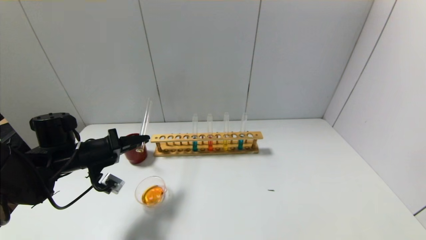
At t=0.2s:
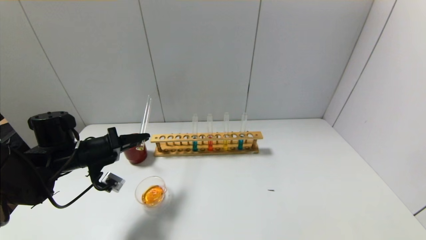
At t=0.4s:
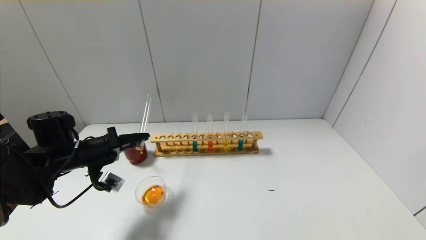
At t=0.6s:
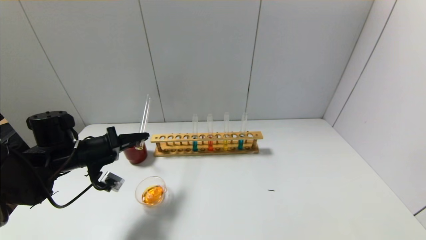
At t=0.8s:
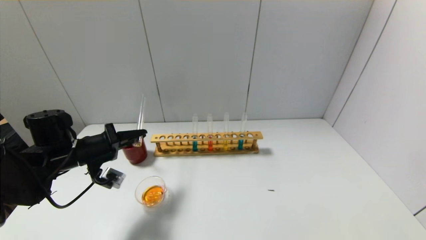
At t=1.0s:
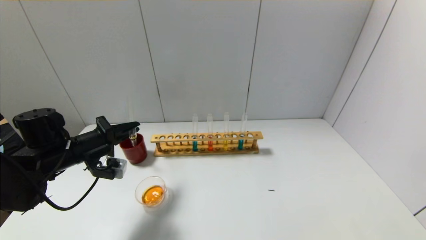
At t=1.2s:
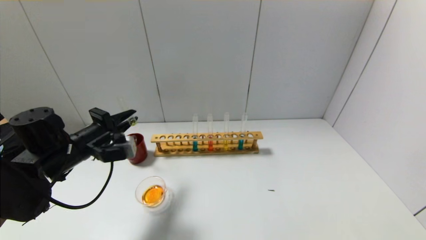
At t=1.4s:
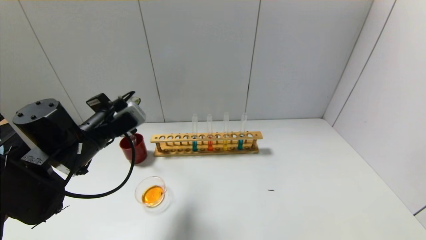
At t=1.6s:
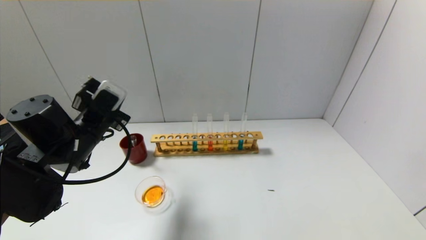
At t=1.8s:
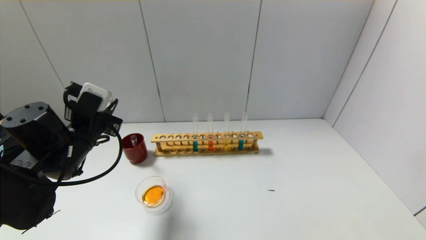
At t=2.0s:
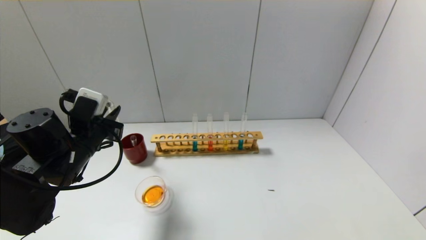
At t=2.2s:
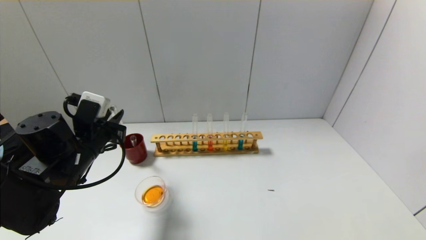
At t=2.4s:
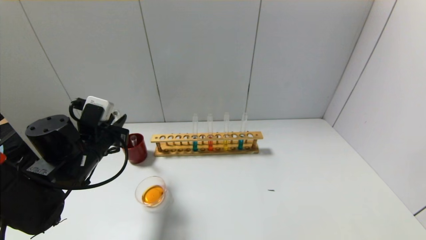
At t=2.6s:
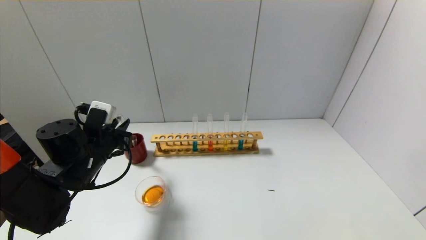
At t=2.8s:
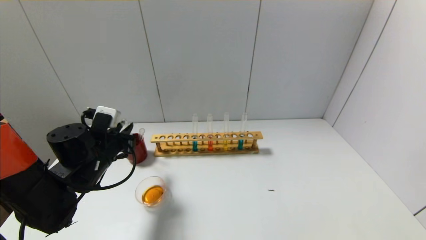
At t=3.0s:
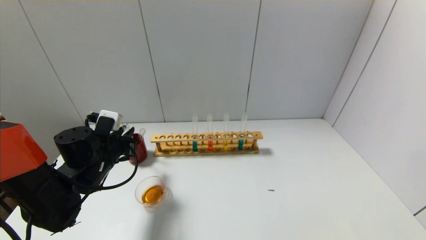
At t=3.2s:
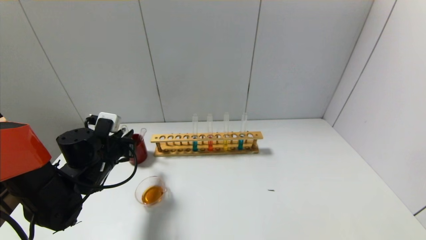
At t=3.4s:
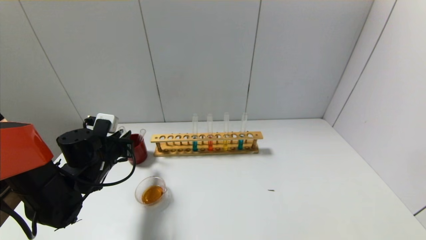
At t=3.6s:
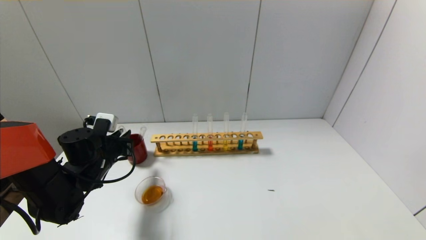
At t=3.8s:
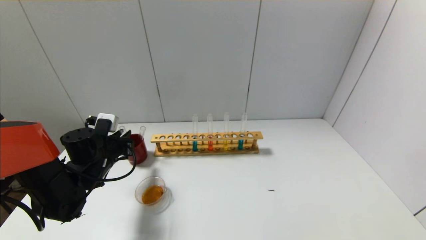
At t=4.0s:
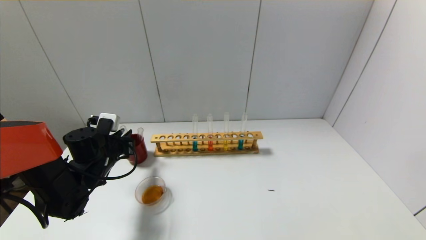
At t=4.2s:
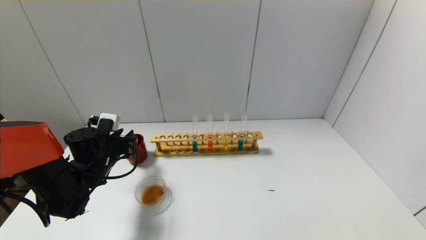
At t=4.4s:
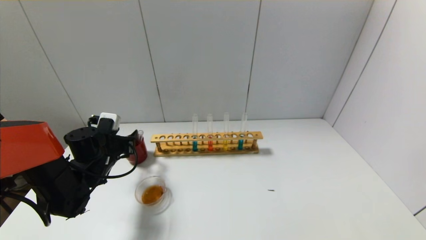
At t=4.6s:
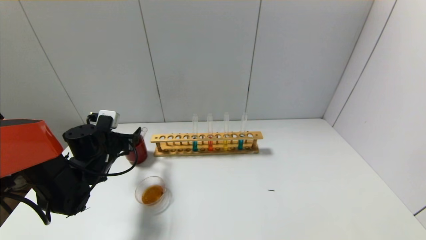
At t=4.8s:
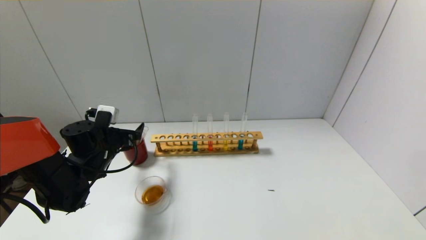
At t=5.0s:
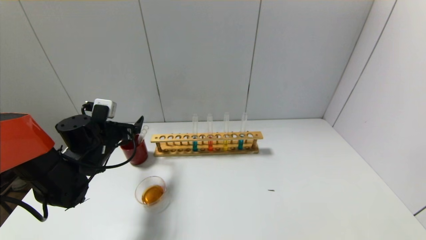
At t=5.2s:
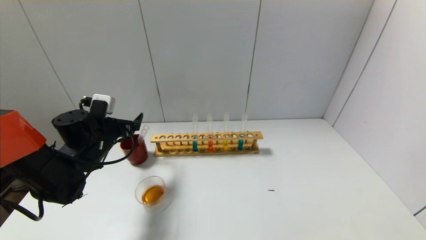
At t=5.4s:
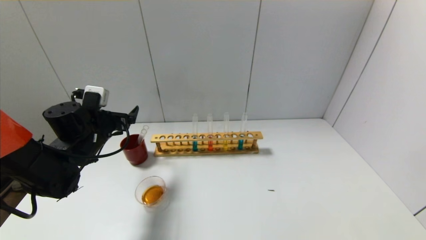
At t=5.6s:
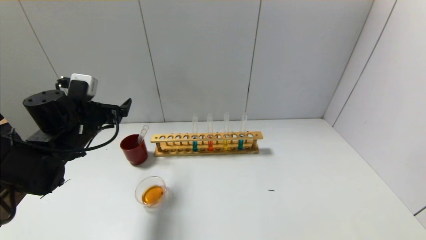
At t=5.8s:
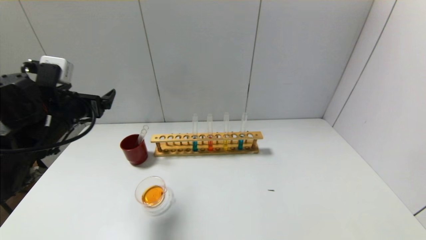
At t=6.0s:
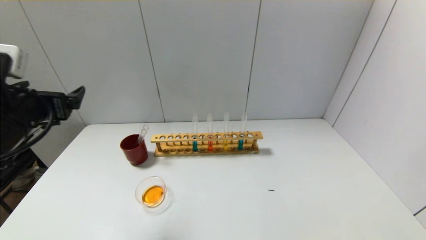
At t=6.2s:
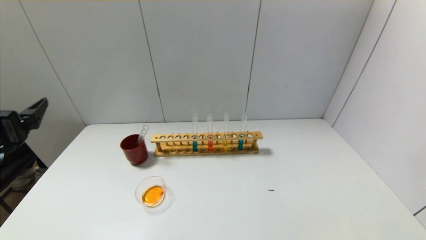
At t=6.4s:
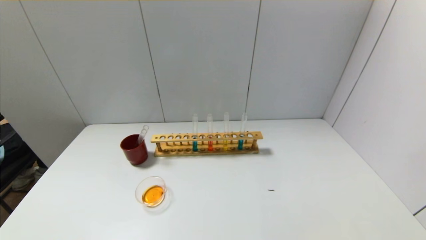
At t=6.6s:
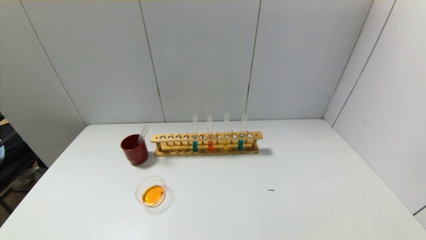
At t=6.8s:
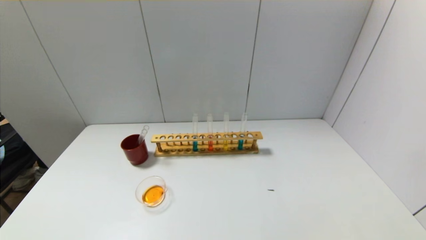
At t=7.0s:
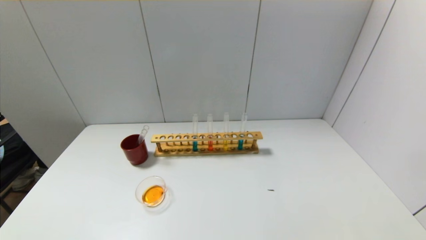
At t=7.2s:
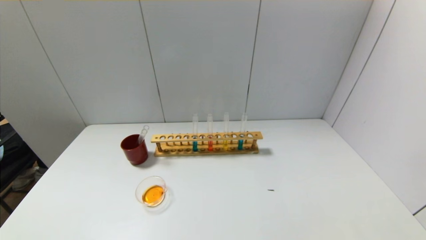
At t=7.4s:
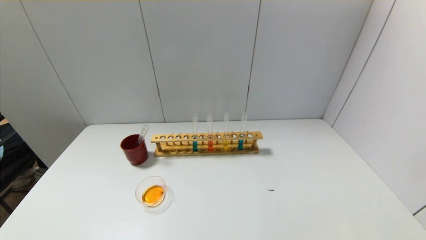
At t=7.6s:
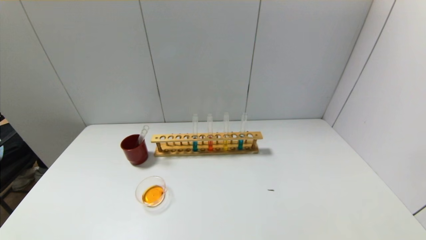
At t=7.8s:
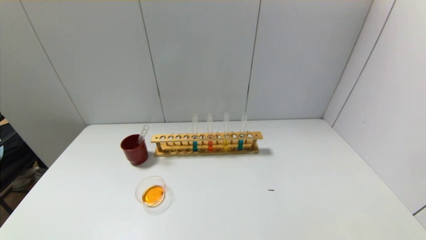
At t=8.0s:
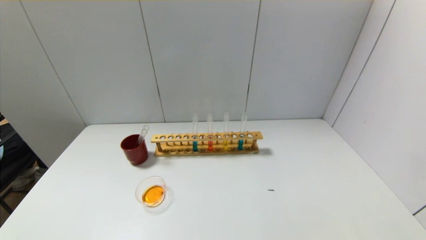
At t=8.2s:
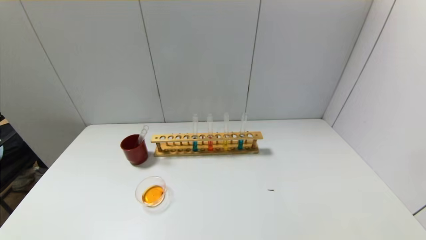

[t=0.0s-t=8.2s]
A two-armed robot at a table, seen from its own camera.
Step, t=1.0s to t=4.4s: Place the test tube into the brown cup with the left gripper.
t=0.0s to t=1.6s: The left gripper heads upward and to the right, covering roughly 10 cm.
t=1.6s to t=3.2s: The left gripper goes some 10 cm downward.
t=3.2s to t=5.0s: The left gripper opens up.
t=5.0s to t=6.6s: The left gripper is displaced backward by roughly 30 cm.

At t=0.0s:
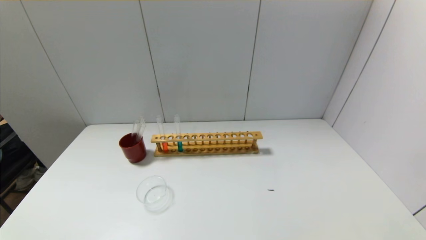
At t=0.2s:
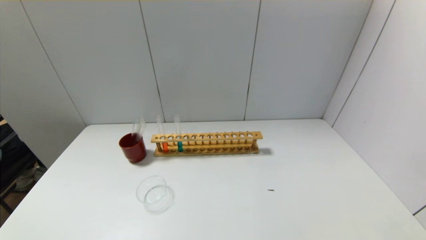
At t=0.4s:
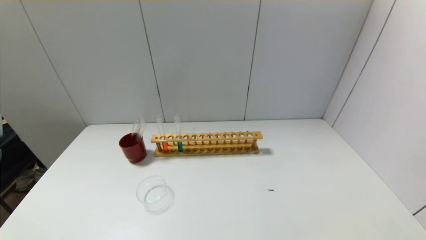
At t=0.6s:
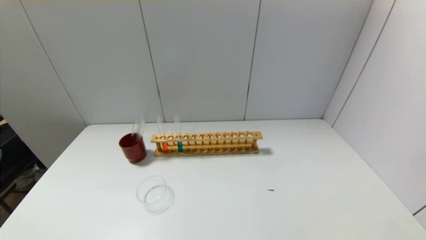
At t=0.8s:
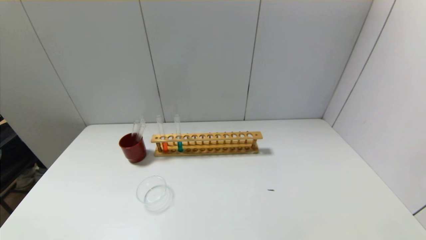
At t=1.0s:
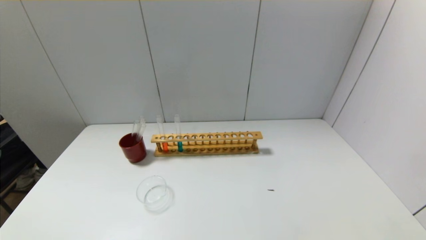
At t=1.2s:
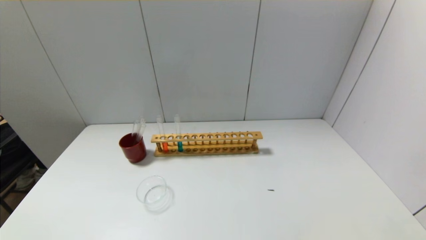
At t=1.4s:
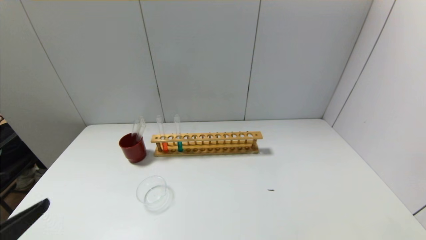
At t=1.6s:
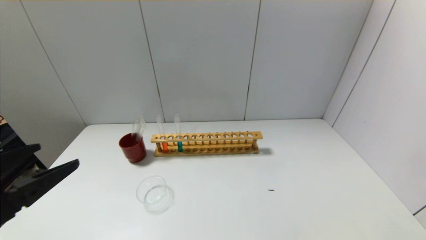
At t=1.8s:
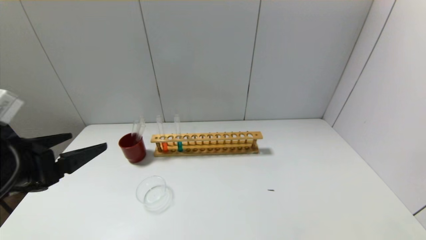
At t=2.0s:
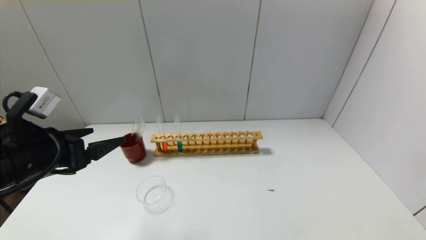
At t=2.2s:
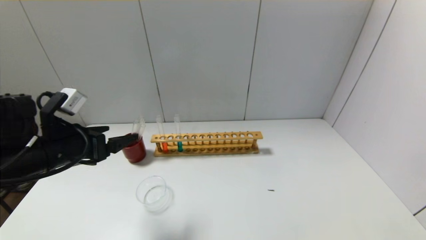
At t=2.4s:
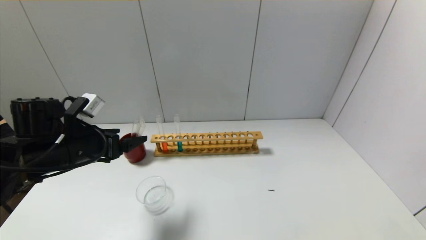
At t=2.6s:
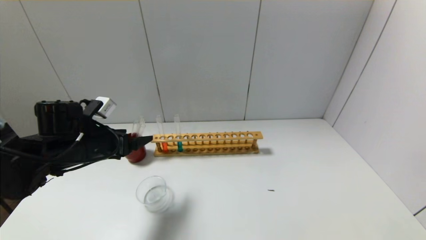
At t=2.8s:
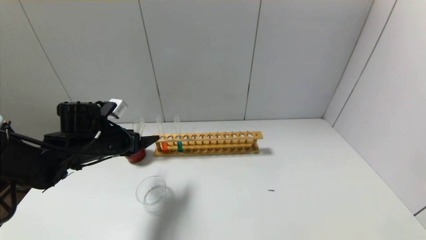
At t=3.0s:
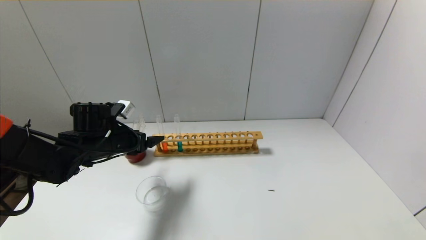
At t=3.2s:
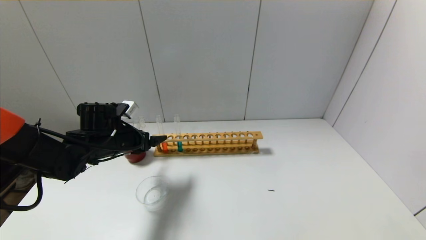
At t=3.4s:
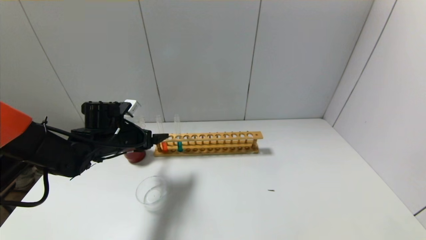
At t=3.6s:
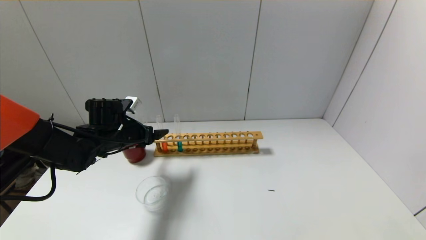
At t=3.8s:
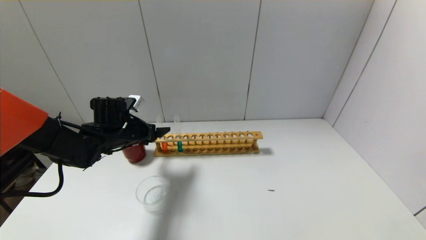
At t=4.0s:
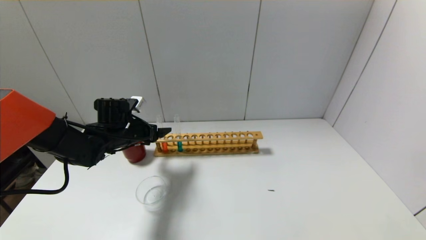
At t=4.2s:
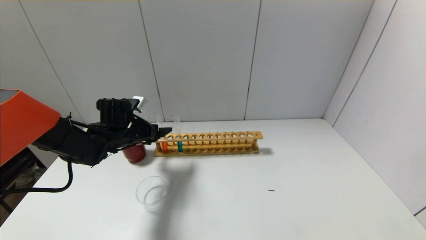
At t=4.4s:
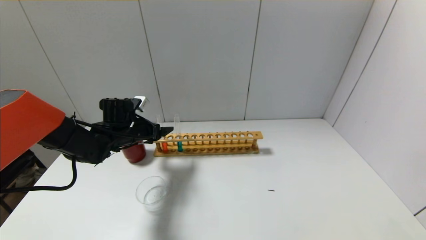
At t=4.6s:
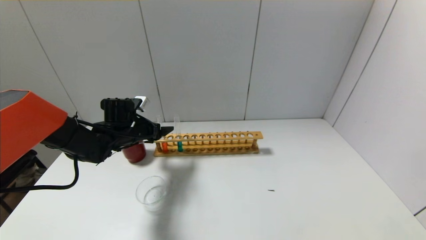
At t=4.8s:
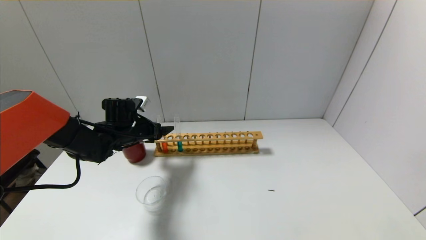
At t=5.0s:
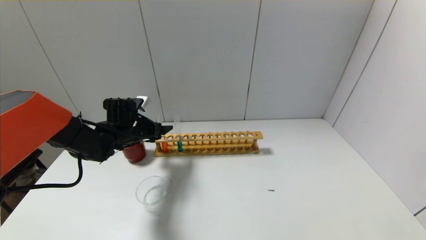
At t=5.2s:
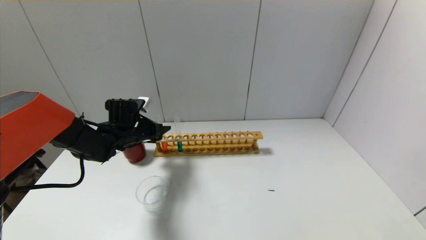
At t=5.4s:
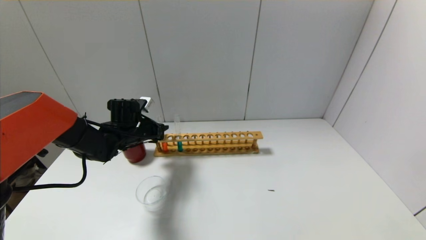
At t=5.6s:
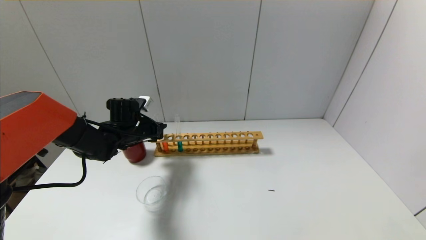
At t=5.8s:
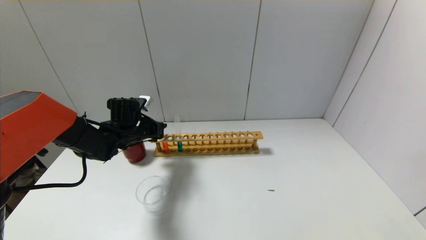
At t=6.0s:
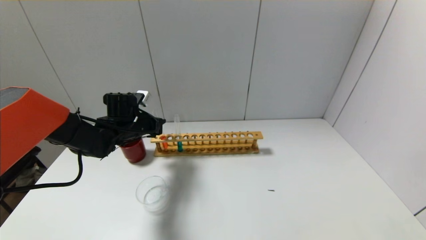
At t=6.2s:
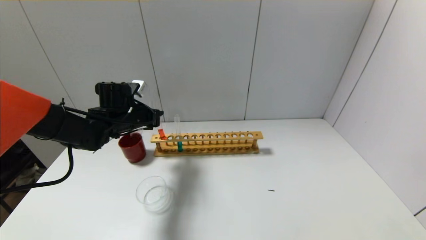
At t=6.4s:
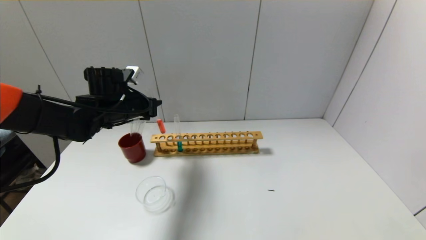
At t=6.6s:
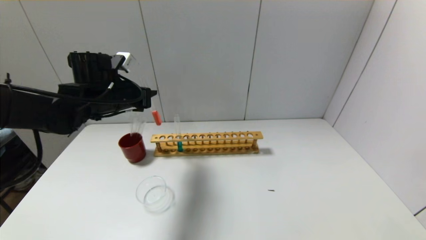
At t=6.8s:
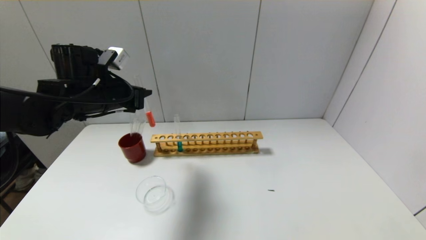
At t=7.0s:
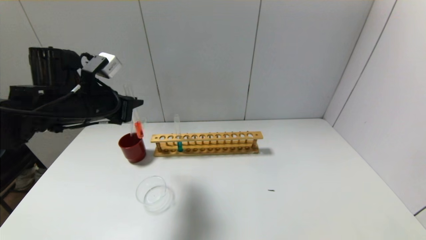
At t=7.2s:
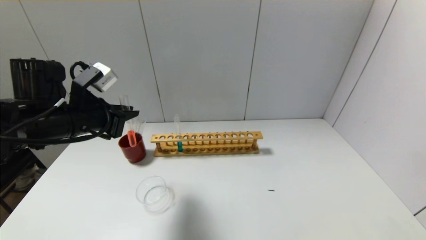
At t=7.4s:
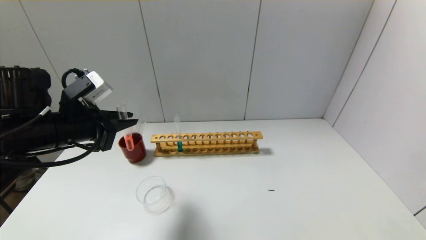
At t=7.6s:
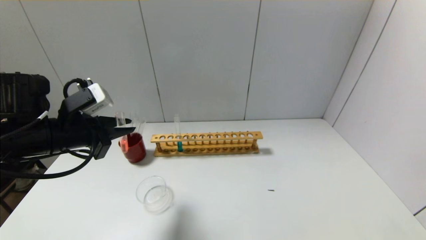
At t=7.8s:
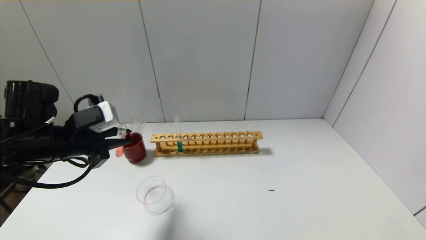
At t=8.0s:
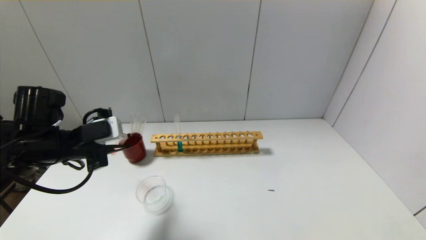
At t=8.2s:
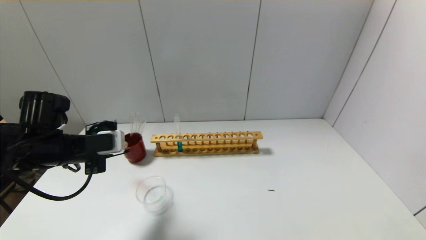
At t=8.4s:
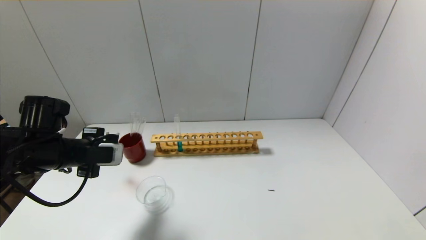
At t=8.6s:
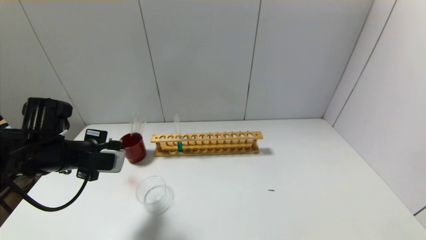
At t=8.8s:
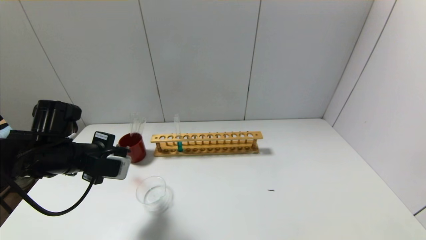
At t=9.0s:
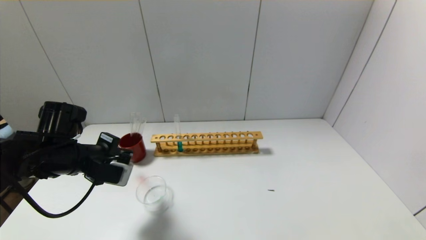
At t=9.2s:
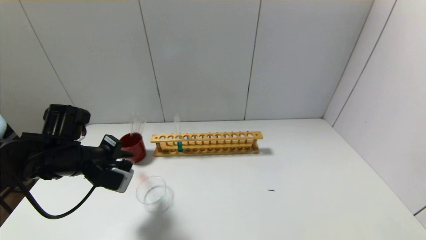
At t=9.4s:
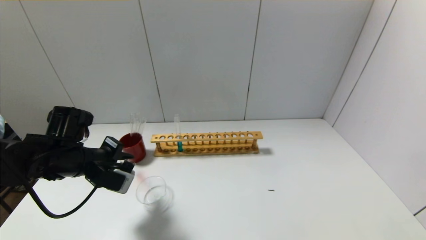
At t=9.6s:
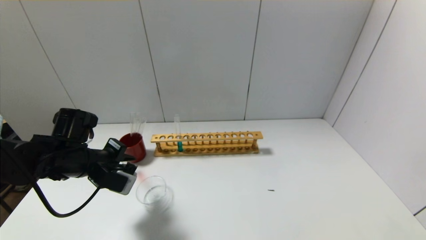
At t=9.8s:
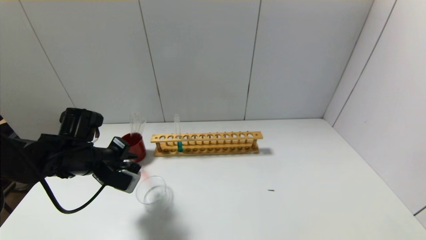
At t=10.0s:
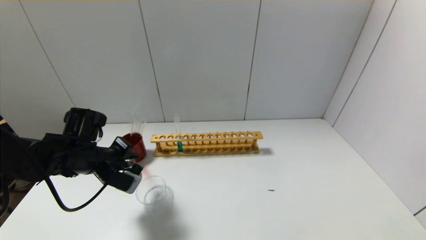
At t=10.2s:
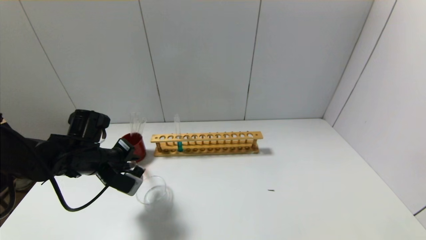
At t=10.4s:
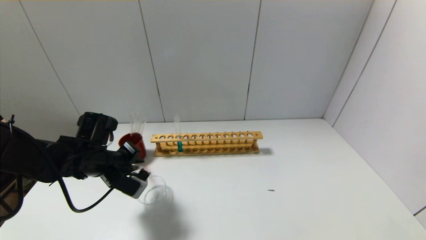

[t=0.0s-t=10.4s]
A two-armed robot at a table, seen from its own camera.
Step, t=0.0s to t=5.6s: Grasp the red reagent with the left gripper.
t=0.0s to t=1.4s: The left gripper goes approximately 15 cm upward and forward.
t=1.4s to t=3.0s: The left gripper is displaced forward by approximately 30 cm.
t=3.0s to t=4.4s: The left gripper moves forward, about 5 cm.
t=4.4s to t=6.0s: The left gripper closes up.
t=6.0s to t=7.4s: The left gripper goes roughly 20 cm backward and upward.
t=7.4s to t=9.0s: The left gripper shifts approximately 5 cm downward.
t=9.0s to t=10.4s: The left gripper ends up roughly 5 cm from where it was.
